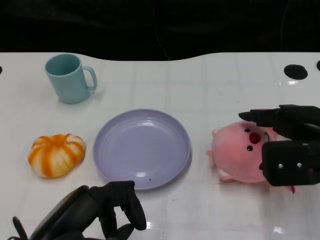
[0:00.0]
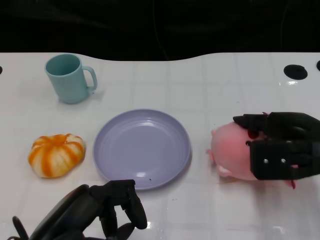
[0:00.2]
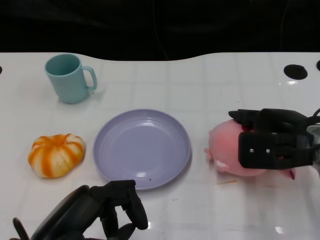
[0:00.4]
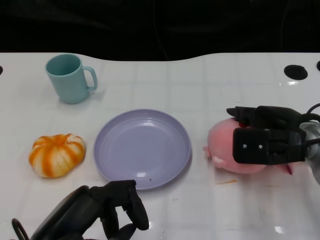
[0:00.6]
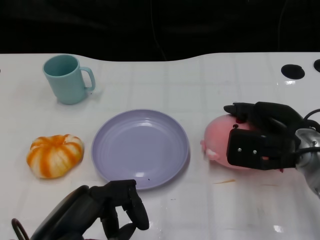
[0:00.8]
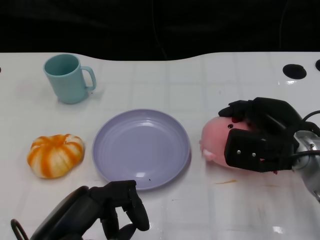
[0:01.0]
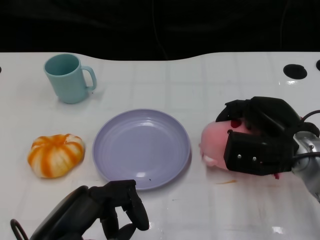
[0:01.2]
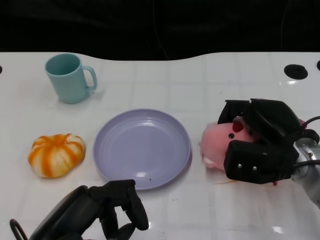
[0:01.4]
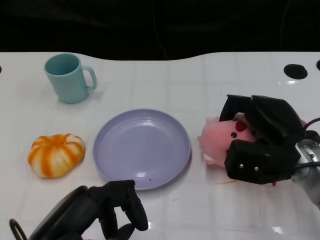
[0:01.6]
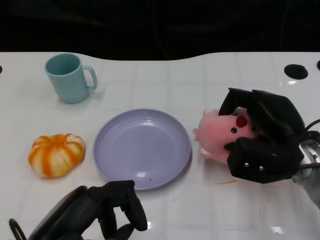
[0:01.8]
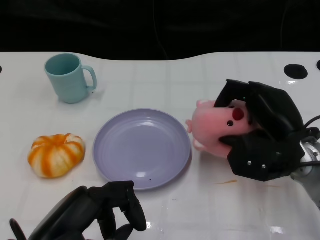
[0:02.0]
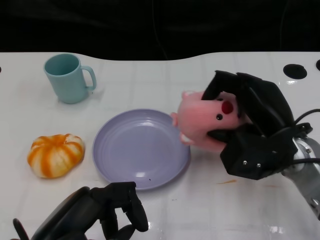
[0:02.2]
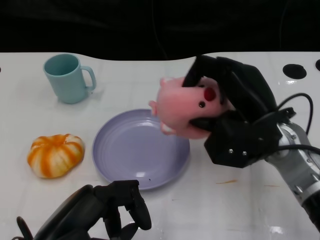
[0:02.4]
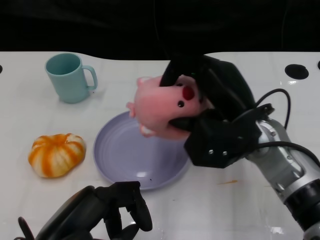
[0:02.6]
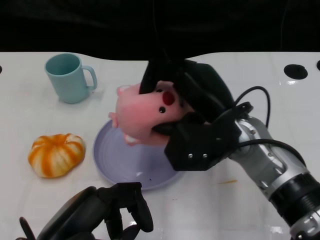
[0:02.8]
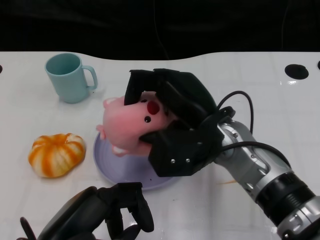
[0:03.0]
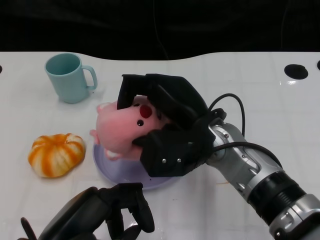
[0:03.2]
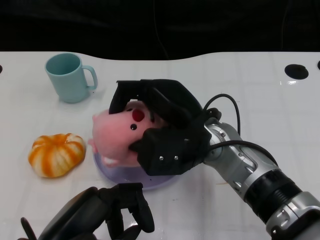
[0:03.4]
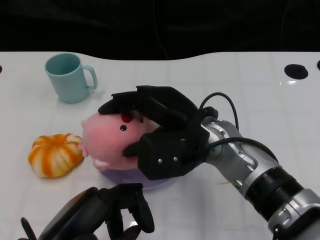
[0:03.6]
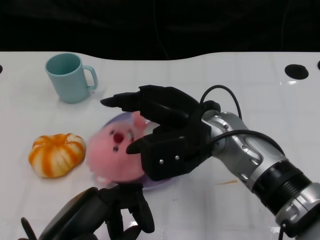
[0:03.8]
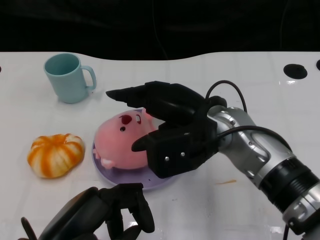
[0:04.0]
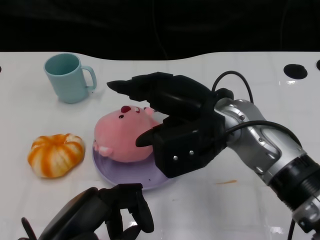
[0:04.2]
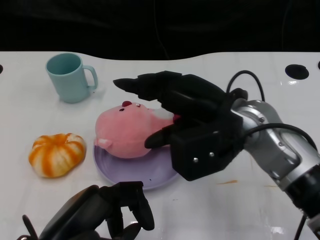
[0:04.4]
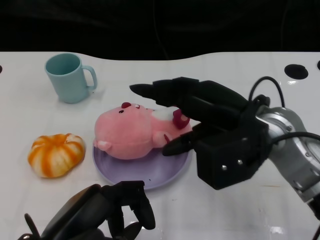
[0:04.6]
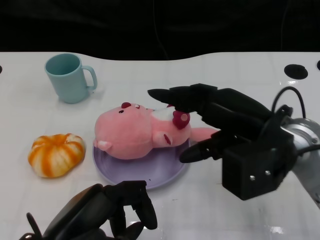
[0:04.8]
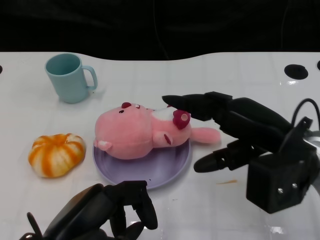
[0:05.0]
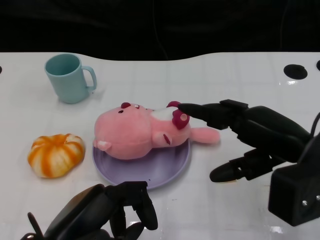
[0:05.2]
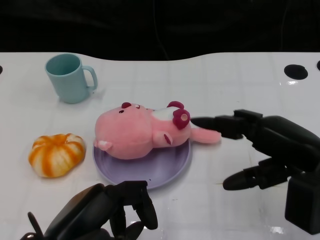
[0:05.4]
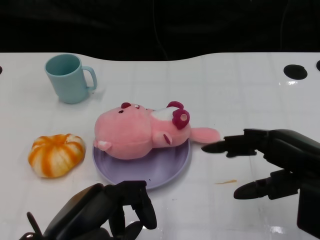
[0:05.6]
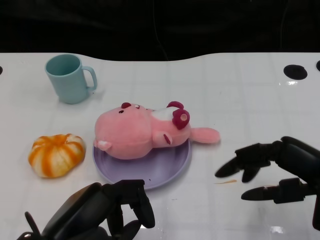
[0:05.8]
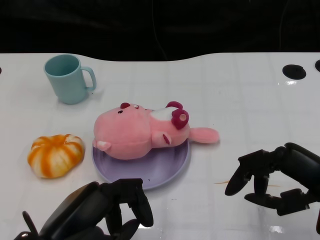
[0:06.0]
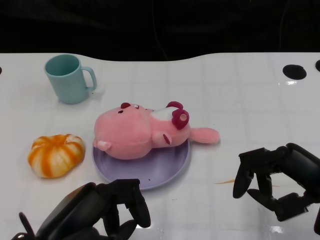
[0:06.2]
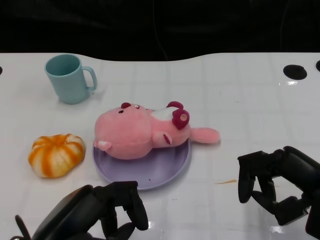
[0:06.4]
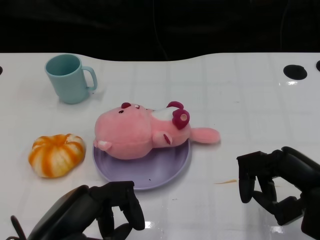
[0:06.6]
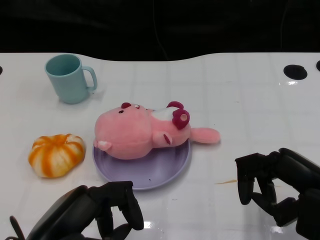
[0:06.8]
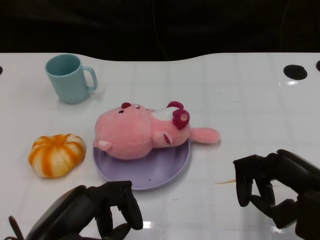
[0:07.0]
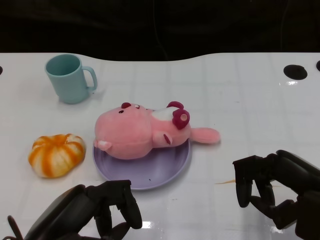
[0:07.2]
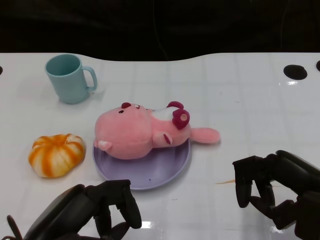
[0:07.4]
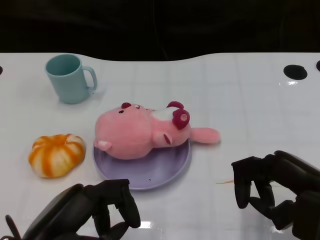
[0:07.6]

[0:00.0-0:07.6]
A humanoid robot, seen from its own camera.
Task of the whole recording: Pick up the doll on the other side of the plate and place it into the plate.
Step, 0:00.0 to 0:02.4: Grasp the pink doll with the right gripper.
Step, 0:02.6 to 0:04.8: Place the pink doll into the plate with the right gripper.
0:00.0 to 0:01.6: The right hand moves downward, approximately 5 cm.
0:01.6 to 0:03.0: The right hand heads to the left and upward, covering some 15 cm.
0:03.0 to 0:04.6: The right hand moves to the right, approximately 5 cm.
0:04.6 to 0:06.0: The right hand goes some 15 cm to the right and backward.
0:06.0 to 0:07.6: The hands move only a little.

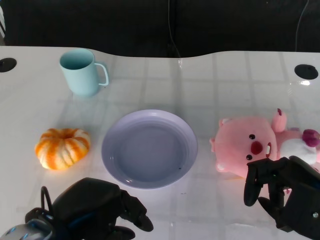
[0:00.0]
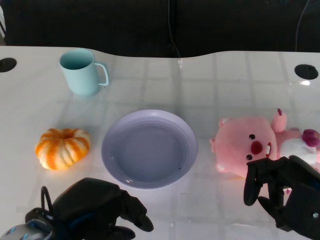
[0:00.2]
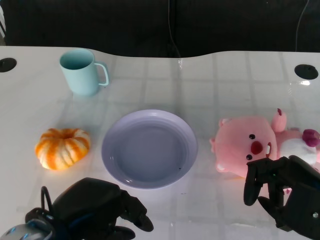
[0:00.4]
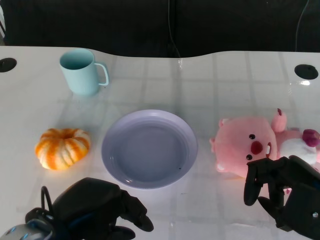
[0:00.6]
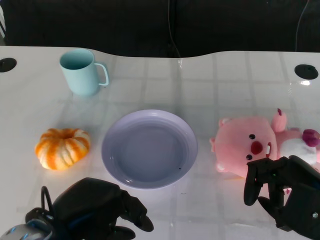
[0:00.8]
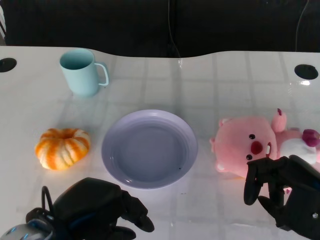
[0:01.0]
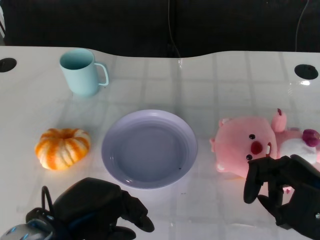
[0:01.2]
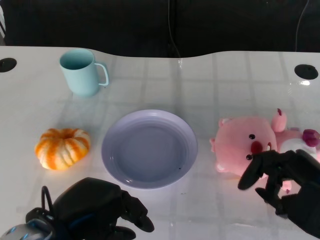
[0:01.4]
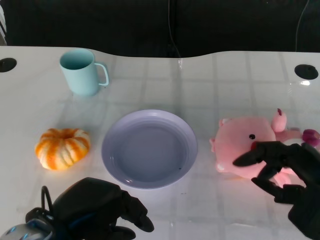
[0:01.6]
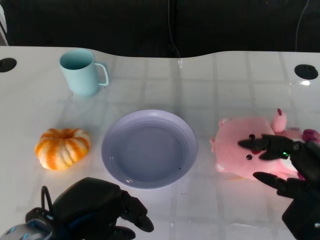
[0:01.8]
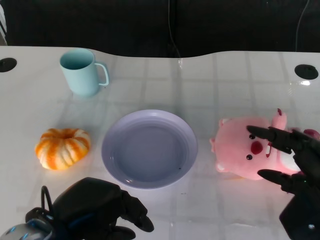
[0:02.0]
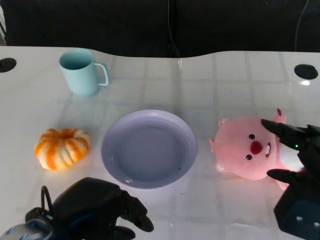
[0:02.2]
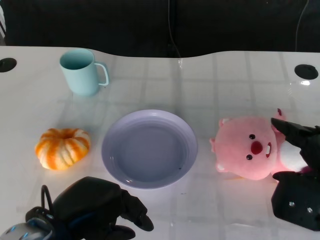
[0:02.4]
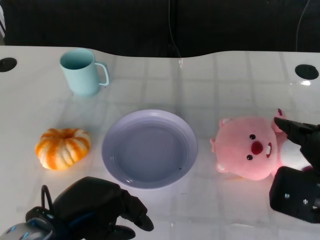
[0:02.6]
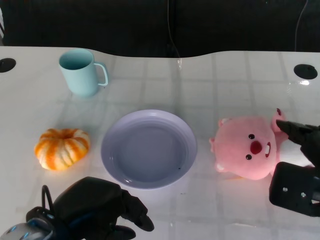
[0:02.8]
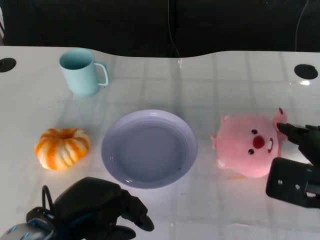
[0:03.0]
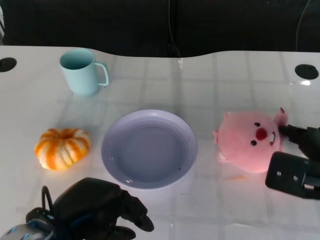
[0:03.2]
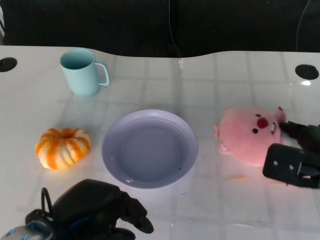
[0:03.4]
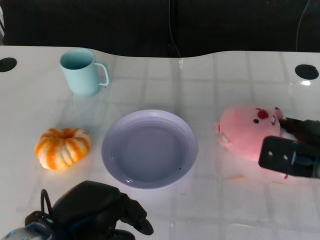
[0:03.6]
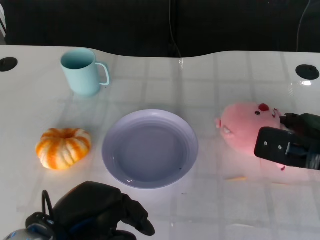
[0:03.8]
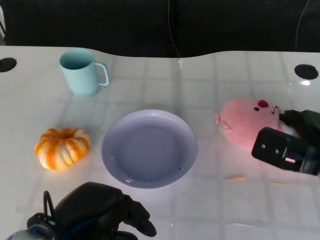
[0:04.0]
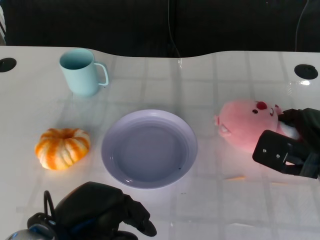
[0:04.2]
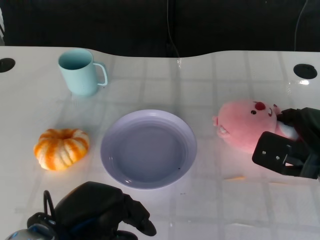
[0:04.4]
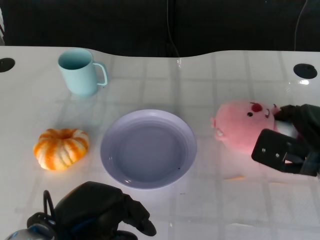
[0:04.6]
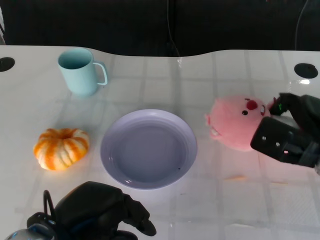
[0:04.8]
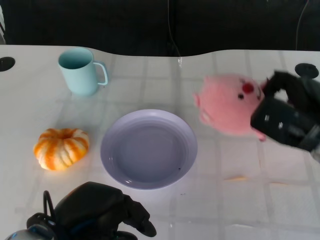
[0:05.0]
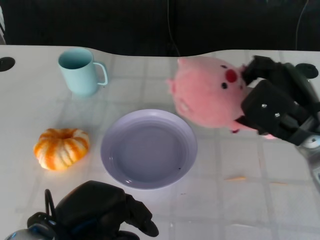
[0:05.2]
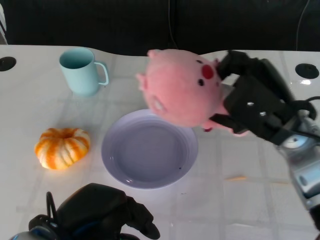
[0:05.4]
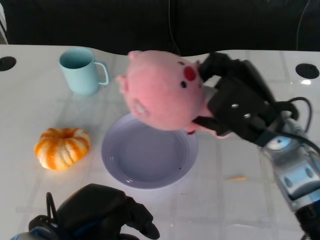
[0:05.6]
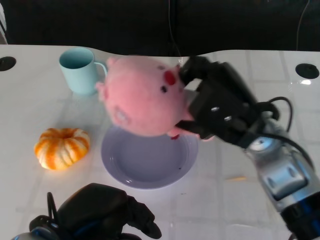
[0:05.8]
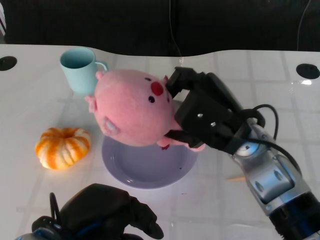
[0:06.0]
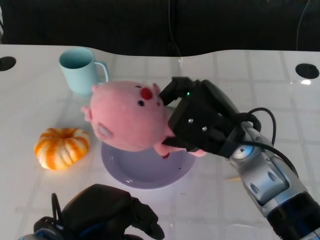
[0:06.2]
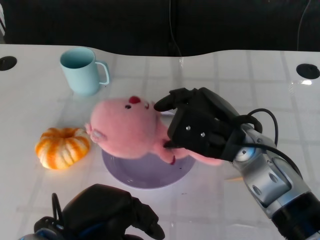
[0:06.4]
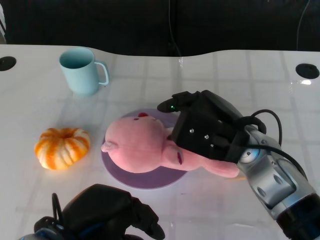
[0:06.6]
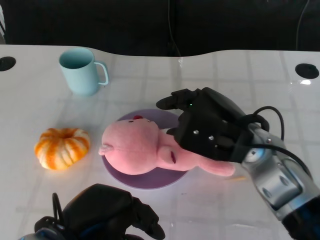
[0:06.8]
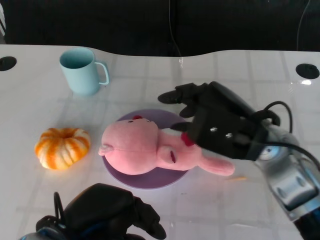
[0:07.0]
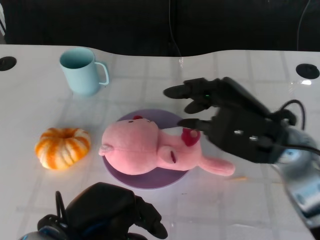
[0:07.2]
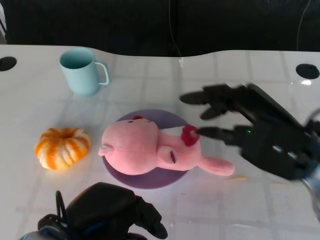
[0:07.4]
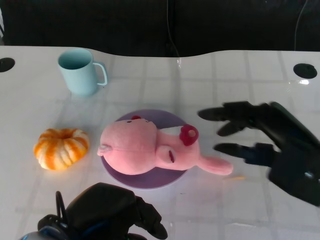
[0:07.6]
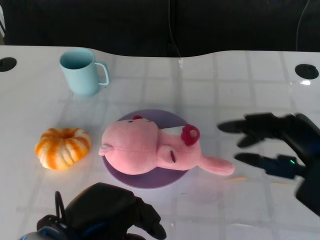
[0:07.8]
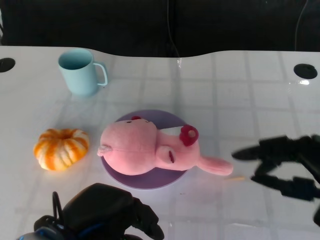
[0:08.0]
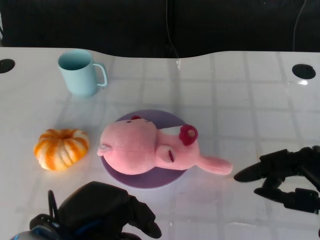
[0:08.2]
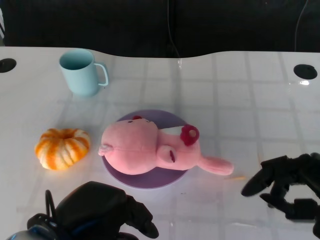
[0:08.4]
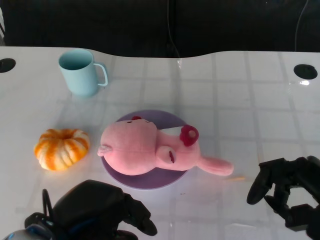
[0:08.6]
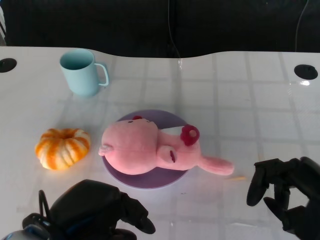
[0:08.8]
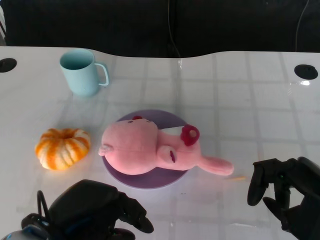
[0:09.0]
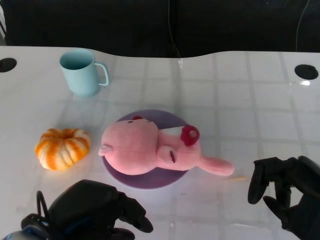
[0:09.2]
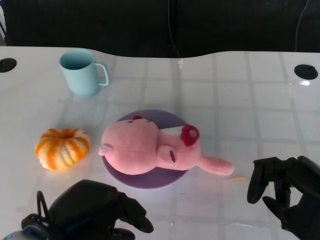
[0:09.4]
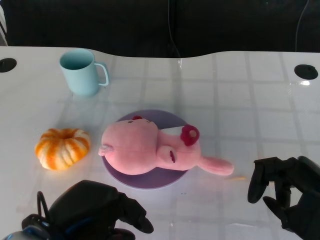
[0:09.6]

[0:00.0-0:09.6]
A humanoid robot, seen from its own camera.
Task of the whole recording: Pick up the doll on the other side of the plate and place it into the plate.
Step, 0:01.2 to 0:05.2: Grasp the pink doll with the right gripper.
Step, 0:05.4 to 0:07.2: Place the pink doll into the plate with the right gripper.
0:01.6 to 0:03.2: The right hand goes some 5 cm forward.
0:03.2 to 0:04.8: The right hand is displaced forward by some 5 cm.
0:04.8 to 0:06.4: The right hand heads to the left and upward, covering approximately 15 cm.
0:06.4 to 0:08.0: The right hand heads to the right and backward, covering roughly 20 cm.
0:08.0 to 0:09.6: There are only small adjustments of the hands.

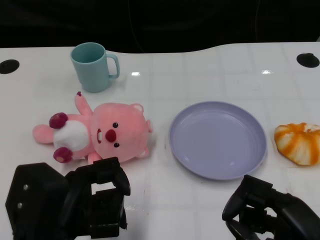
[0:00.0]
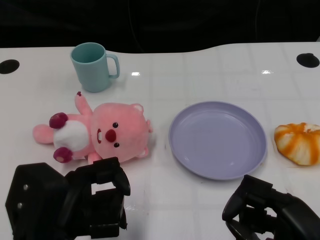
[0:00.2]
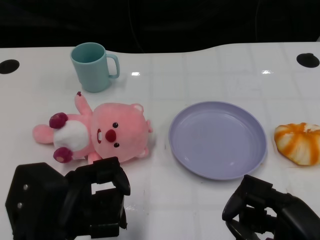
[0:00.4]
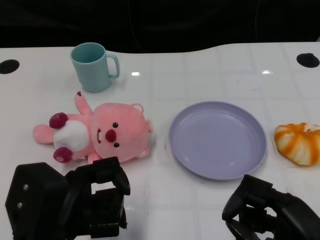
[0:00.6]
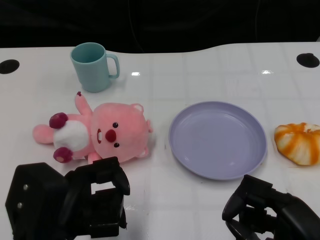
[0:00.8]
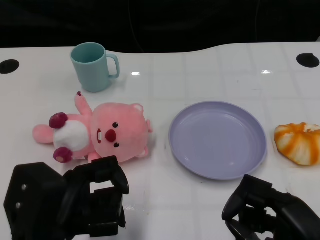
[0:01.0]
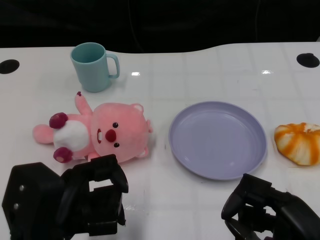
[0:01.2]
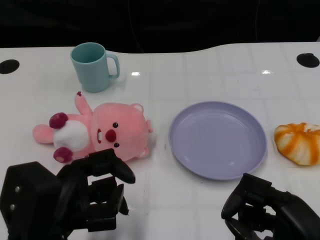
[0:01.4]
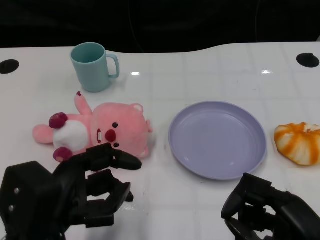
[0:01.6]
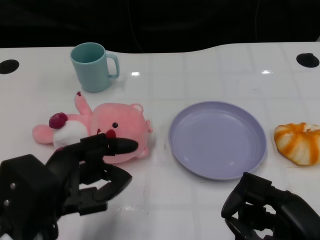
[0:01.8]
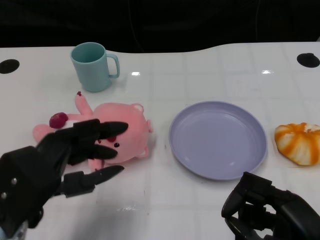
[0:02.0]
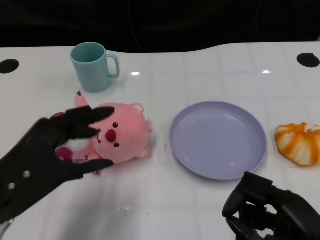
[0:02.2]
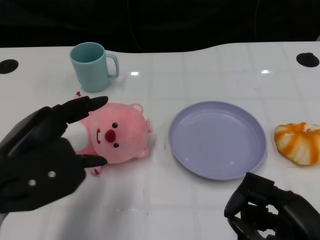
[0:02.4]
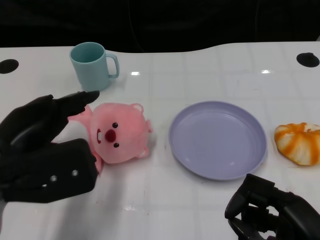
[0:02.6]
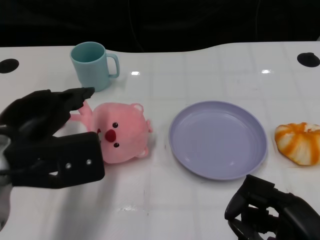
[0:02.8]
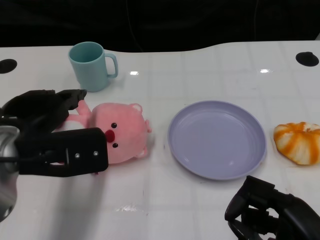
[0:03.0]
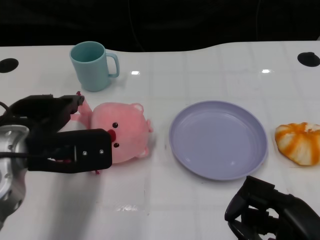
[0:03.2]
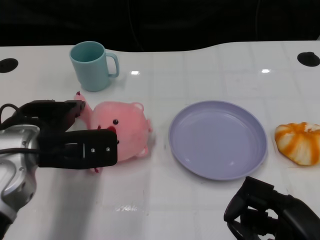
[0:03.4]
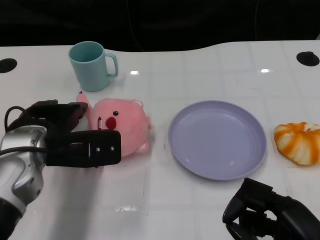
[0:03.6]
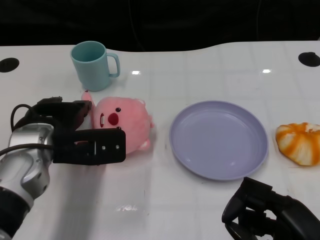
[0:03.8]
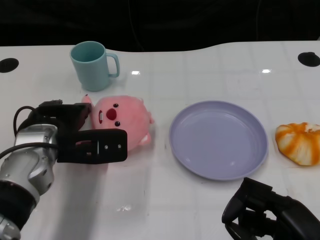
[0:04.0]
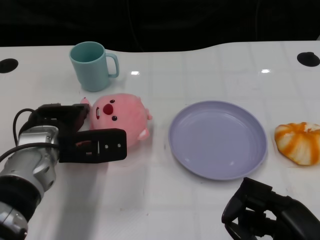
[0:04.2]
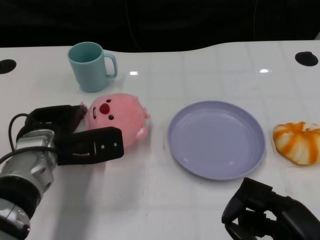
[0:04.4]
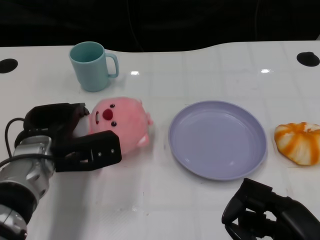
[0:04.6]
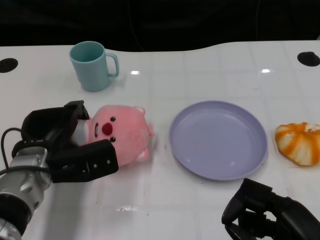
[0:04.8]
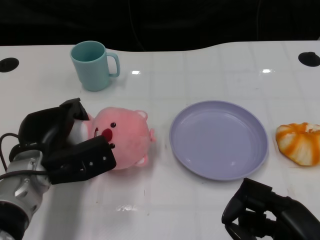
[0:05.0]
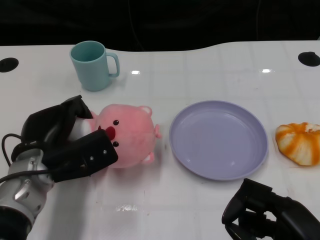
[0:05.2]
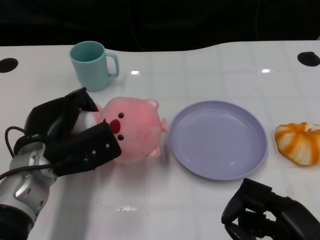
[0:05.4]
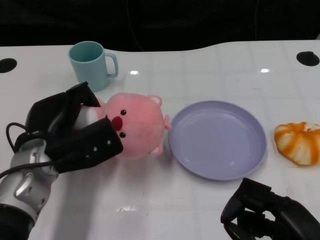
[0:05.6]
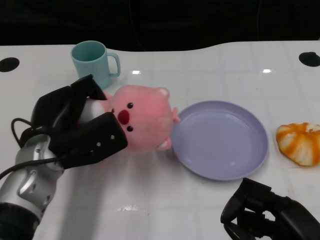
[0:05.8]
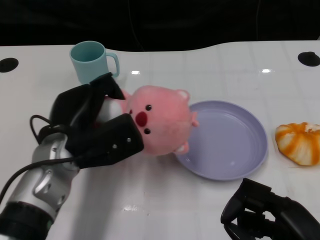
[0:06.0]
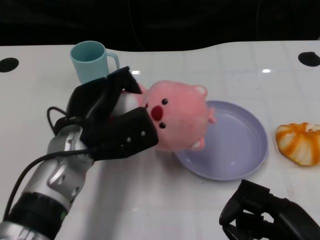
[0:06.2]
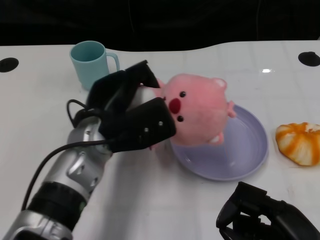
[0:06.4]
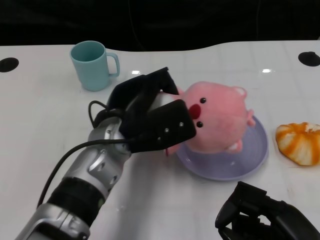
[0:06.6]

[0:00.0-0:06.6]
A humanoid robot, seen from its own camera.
Task of the whole recording: Pick up the doll on one side of the plate and place it into the plate.
Step, 0:01.2 to 0:05.2: Grasp the pink doll with the left gripper.
0:01.6 to 0:03.2: The left hand travels forward by roughly 10 cm.
0:03.2 to 0:05.0: The left hand heads downward, covering some 10 cm.
0:05.0 to 0:06.6: The left hand shifts some 15 cm to the right and upward.
